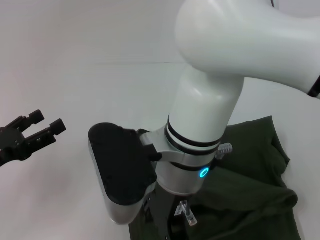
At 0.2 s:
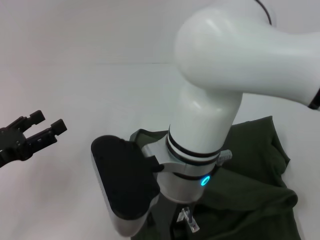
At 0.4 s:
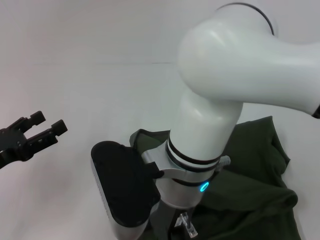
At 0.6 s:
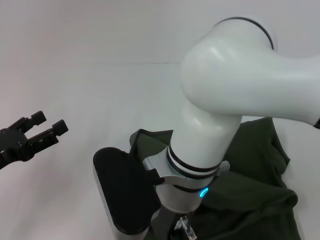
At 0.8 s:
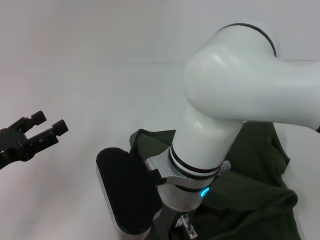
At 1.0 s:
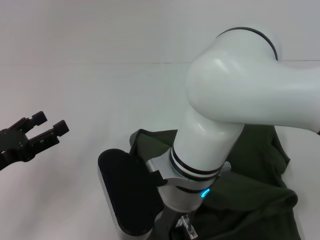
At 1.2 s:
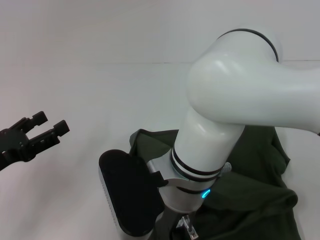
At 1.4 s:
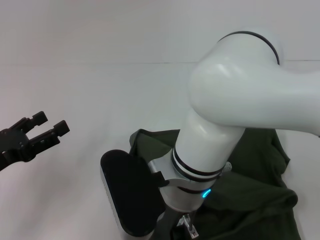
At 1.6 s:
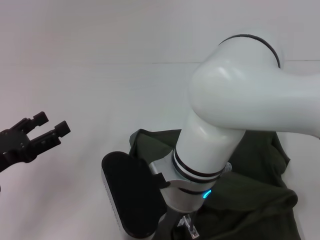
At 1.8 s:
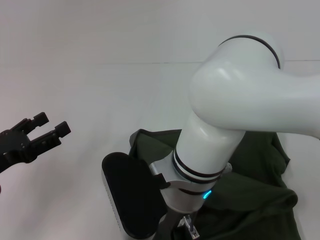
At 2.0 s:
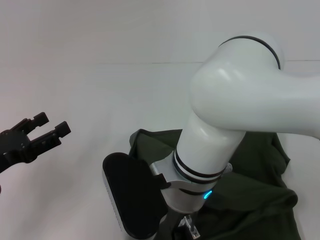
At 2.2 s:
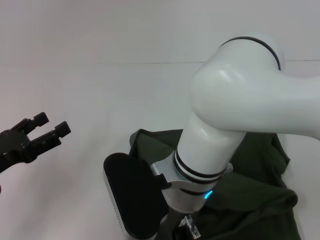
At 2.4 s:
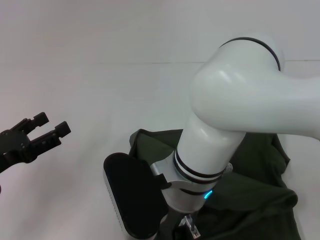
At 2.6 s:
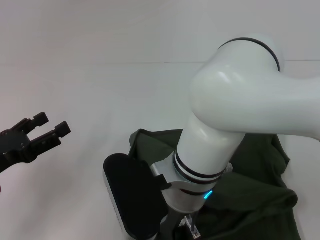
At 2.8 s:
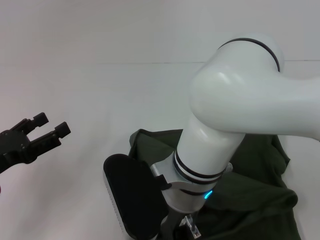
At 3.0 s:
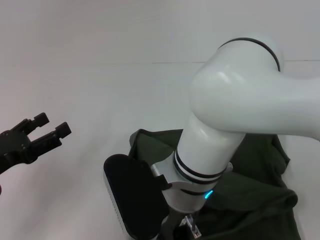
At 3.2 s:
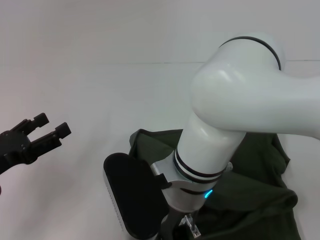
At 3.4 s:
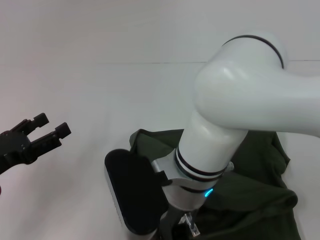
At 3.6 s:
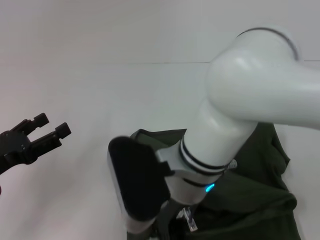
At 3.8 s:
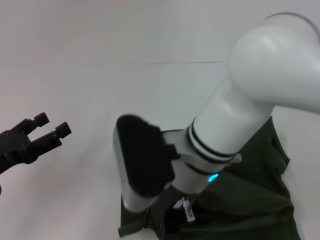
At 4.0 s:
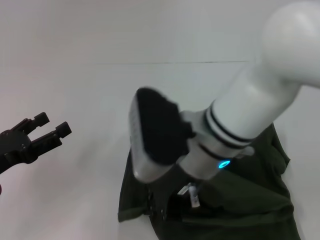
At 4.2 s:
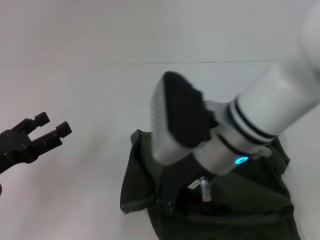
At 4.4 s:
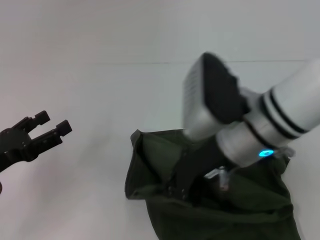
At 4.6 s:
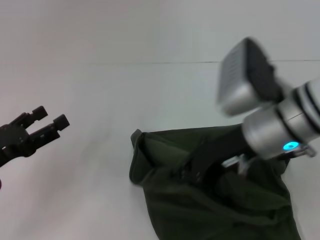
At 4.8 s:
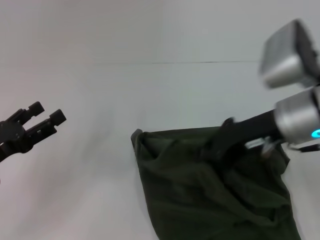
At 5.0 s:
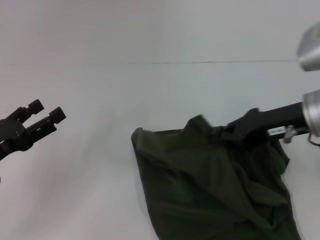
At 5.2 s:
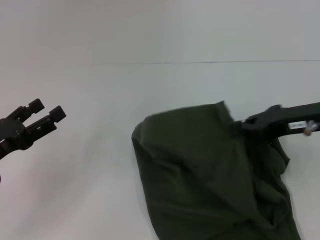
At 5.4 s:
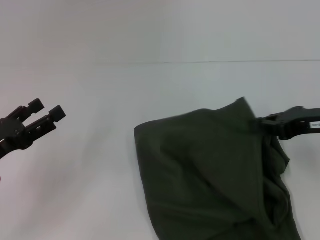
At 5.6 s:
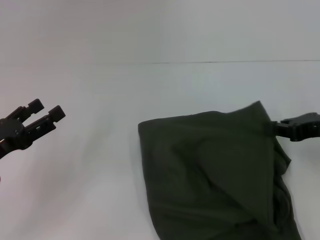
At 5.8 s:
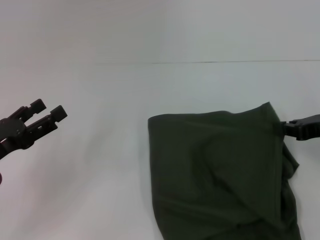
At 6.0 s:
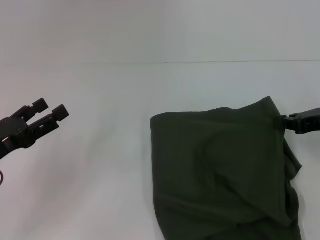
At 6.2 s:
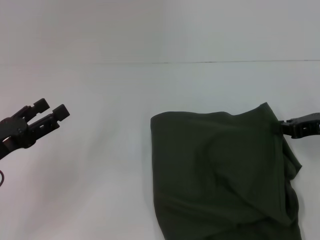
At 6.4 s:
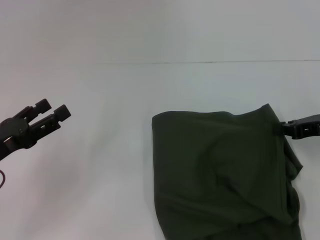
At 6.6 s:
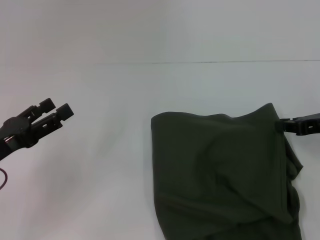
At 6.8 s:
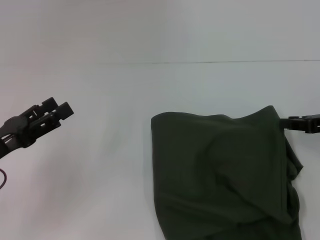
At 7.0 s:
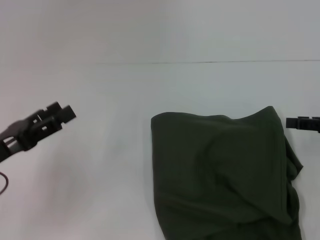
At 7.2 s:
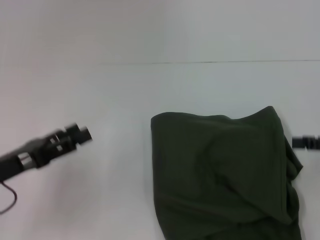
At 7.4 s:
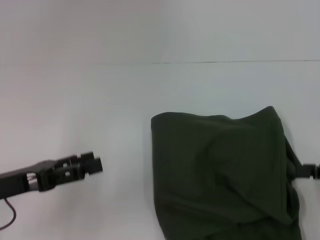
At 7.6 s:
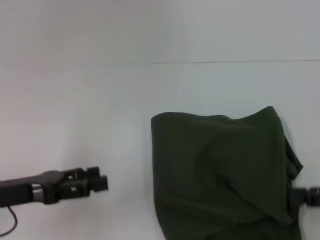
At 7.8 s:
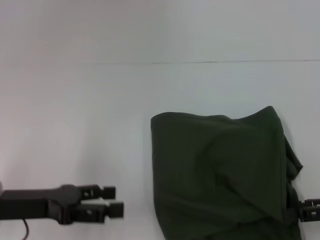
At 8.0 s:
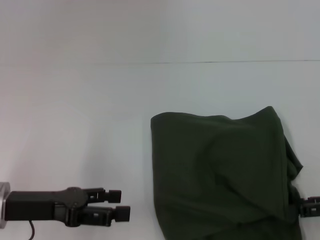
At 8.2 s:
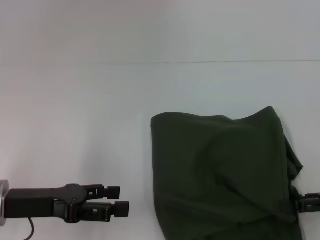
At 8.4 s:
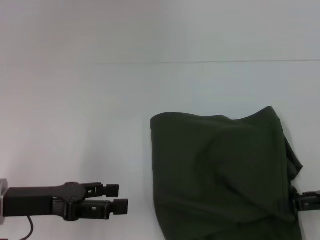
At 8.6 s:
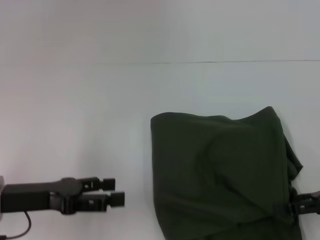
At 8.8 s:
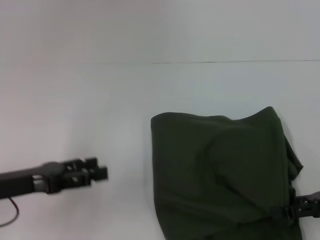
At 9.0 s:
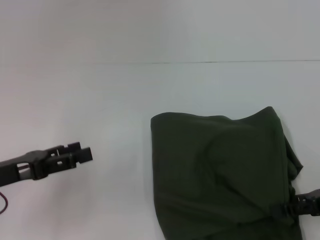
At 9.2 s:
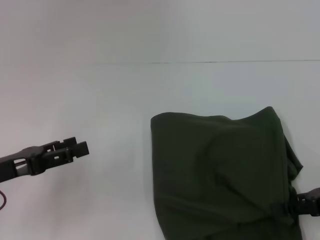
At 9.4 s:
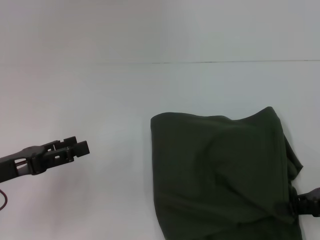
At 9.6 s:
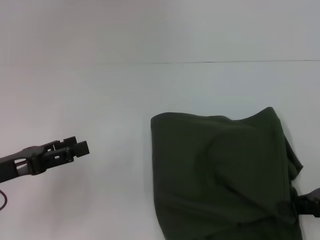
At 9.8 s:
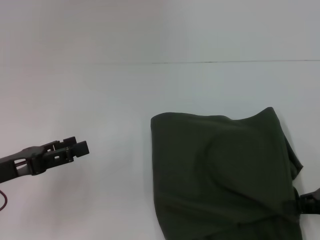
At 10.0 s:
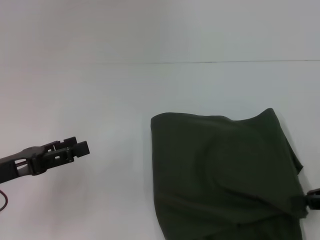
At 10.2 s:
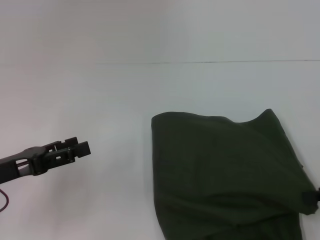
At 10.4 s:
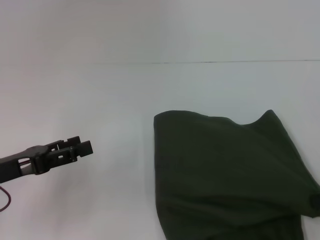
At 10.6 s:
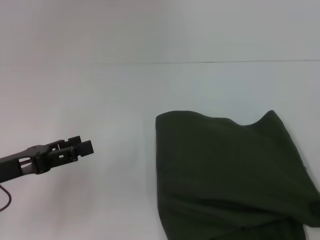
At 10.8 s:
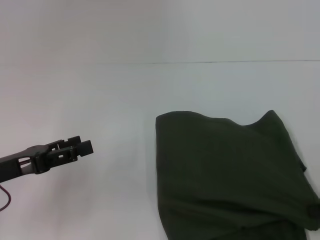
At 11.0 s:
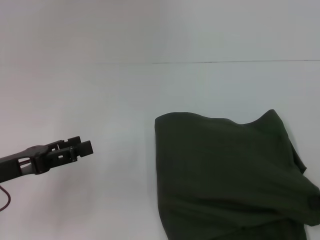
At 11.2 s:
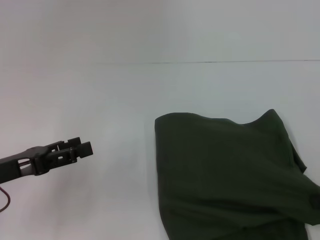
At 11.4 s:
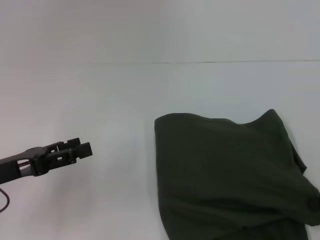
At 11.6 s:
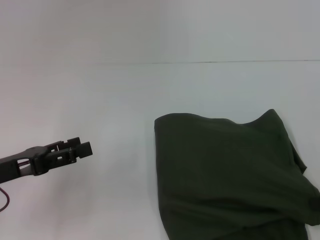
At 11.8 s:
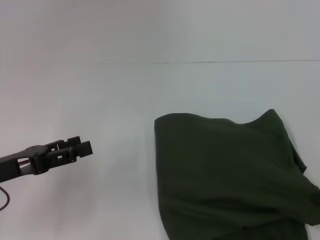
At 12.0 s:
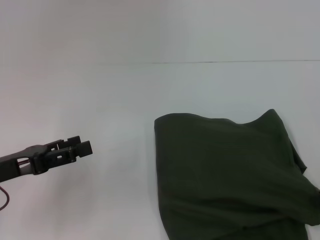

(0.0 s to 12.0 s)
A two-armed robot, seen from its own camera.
1.6 s - 3.0 s: The right gripper closes its fingers.
3.0 s - 4.4 s: The right gripper is displaced to the right by some 10 cm.
4.4 s - 6.0 s: The right gripper travels to the right by some 20 cm.
6.0 s - 7.6 s: The right gripper travels backward by approximately 10 cm, and opens its fingers.
7.6 s - 9.0 s: There are only small adjustments of the grippers.
9.0 s - 10.4 s: The right gripper moves roughly 5 cm, and closes its fingers.
10.4 s - 12.0 s: The grippers make only small movements.

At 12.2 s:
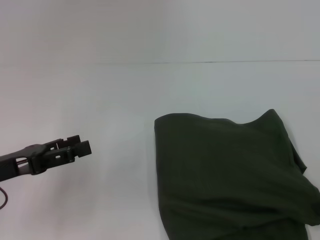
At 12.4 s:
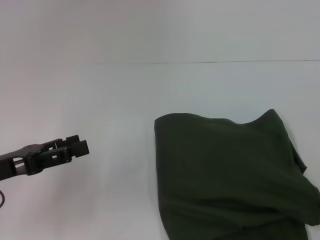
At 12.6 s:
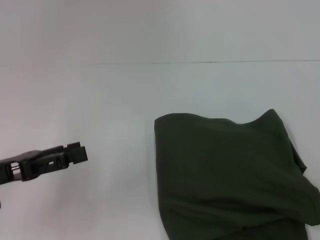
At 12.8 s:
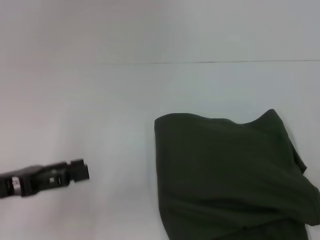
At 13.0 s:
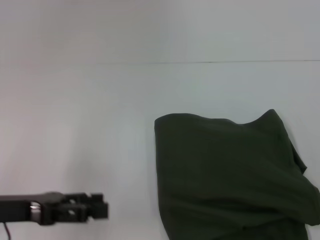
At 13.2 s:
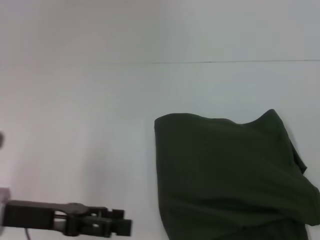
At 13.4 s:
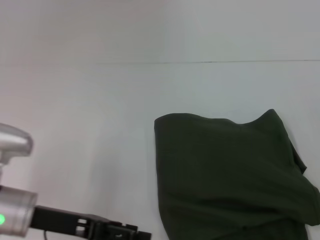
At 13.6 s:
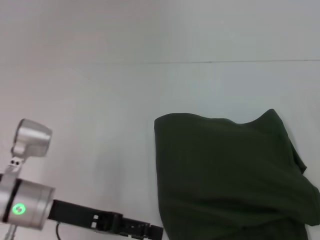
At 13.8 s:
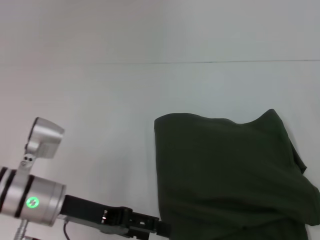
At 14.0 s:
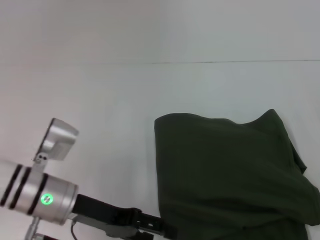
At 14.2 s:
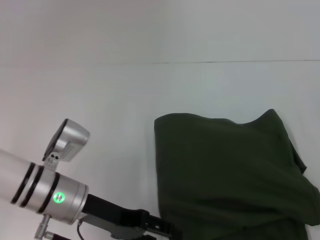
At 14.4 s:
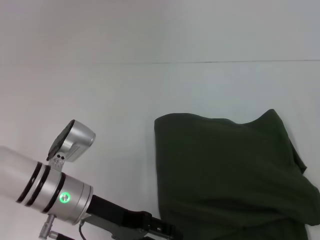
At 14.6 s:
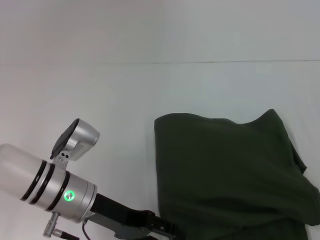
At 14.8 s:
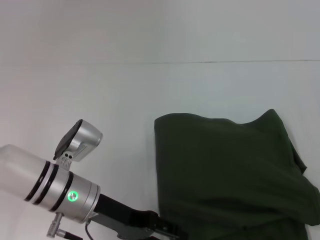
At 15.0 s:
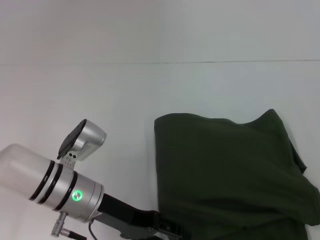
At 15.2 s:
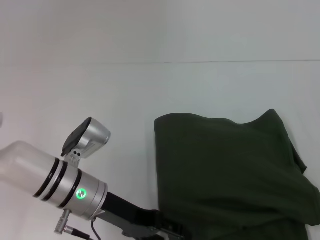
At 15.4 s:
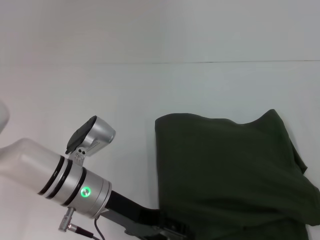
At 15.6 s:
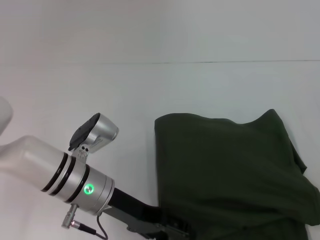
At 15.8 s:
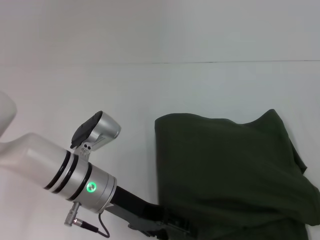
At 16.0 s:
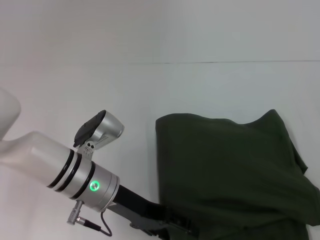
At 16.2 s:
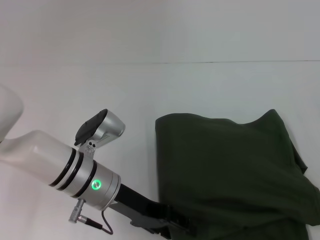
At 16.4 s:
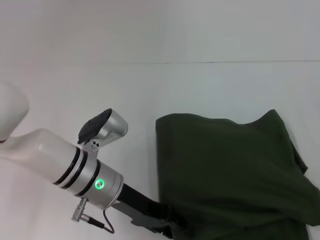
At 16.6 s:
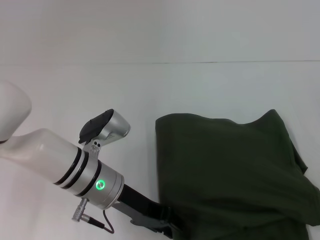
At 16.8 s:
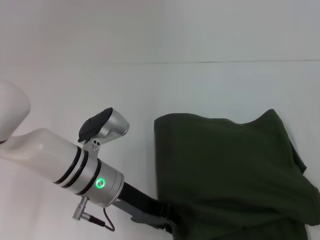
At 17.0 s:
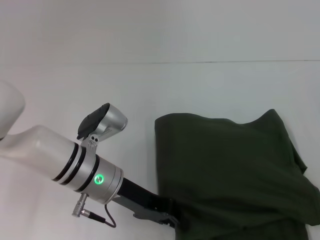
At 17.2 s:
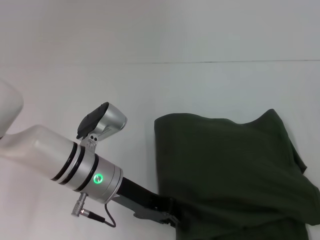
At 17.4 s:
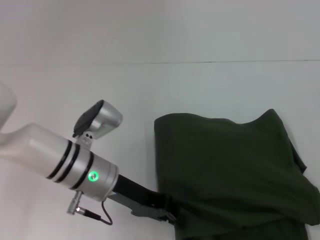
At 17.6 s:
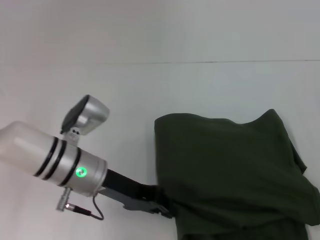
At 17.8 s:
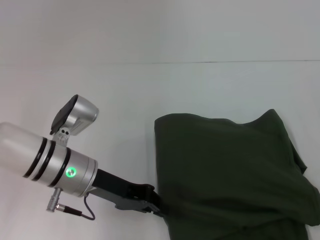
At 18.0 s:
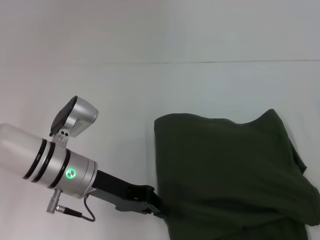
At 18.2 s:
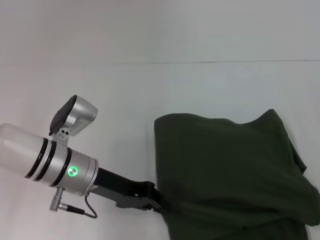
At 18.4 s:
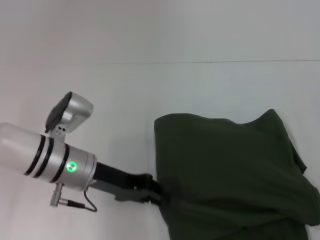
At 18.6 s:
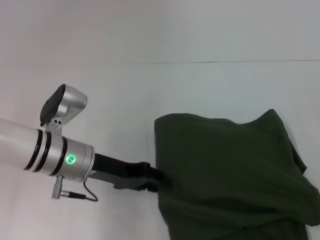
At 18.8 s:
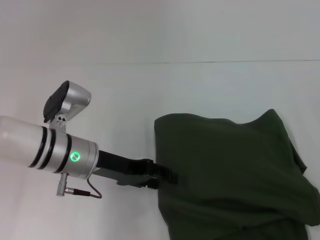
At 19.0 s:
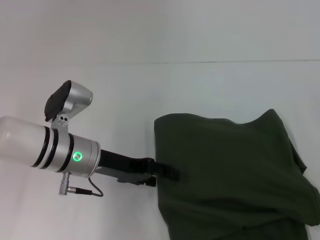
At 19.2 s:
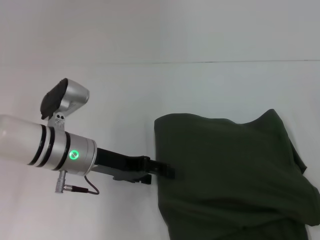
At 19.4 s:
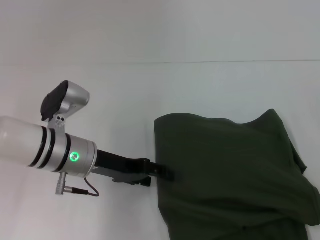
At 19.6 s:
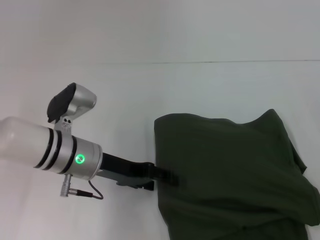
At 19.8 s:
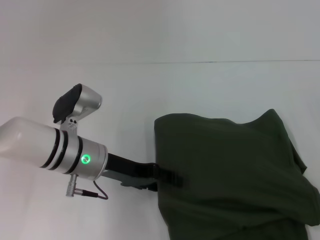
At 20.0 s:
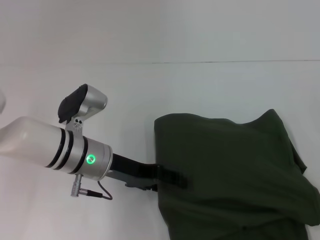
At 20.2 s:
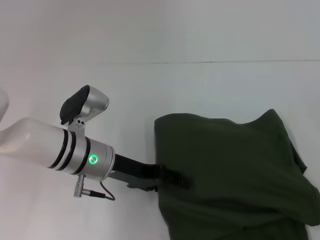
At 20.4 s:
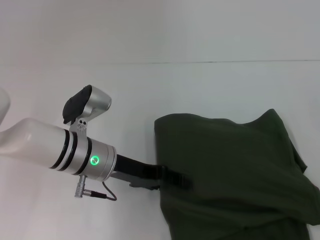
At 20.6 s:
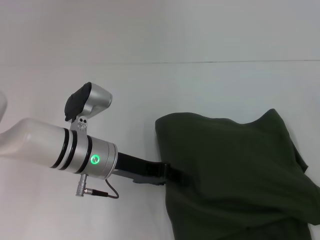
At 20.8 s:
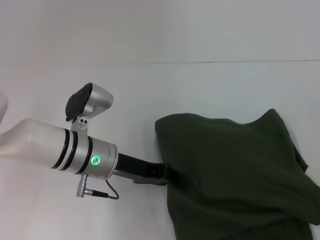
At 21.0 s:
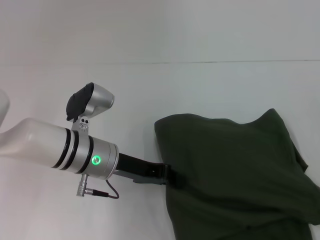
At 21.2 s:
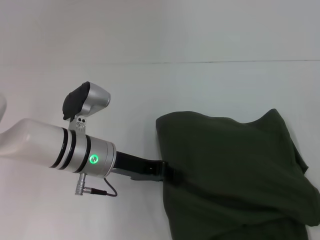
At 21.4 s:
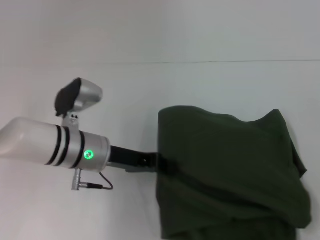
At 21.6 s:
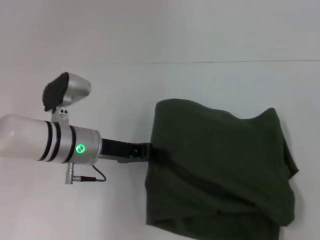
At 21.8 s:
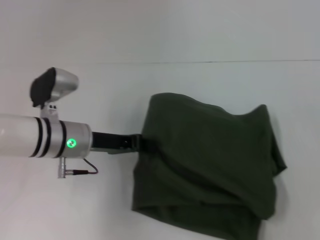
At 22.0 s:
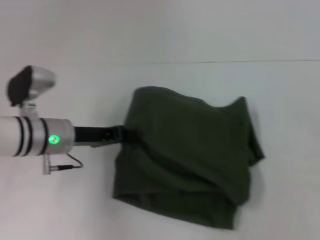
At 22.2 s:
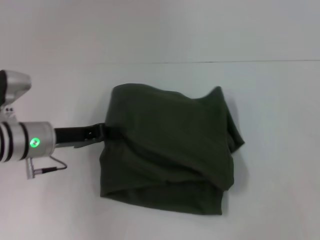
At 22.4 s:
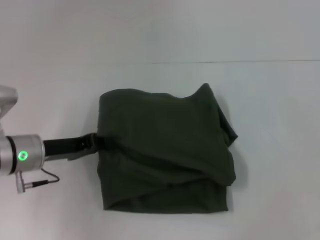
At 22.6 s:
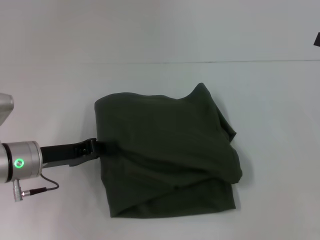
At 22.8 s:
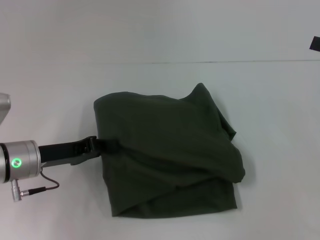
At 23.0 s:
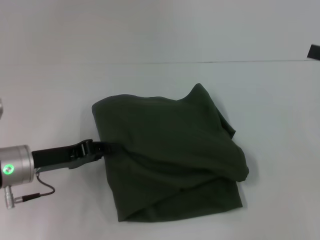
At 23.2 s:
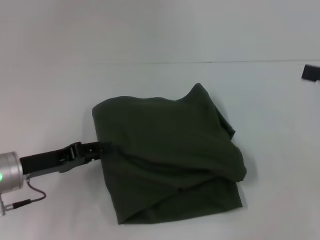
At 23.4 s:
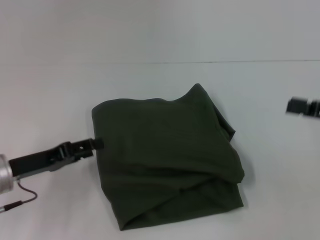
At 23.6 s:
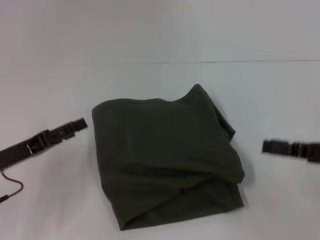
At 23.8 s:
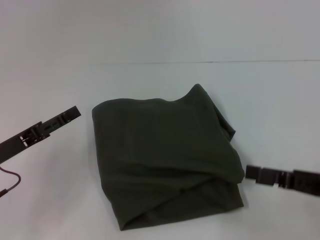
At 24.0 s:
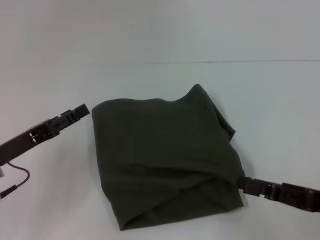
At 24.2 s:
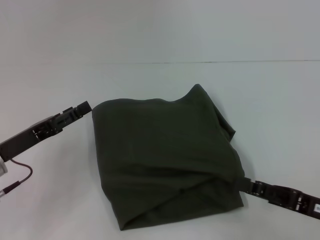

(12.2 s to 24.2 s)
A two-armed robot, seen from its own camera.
12.2 s - 13.8 s: The right gripper moves upward and to the right, roughly 10 cm, and opens its fingers; the left gripper goes about 10 cm to the right.
13.8 s - 15.2 s: The left gripper is displaced to the right by approximately 5 cm.
15.2 s - 16.6 s: The grippers make only small movements.
16.6 s - 18.2 s: The left gripper closes.
18.2 s - 19.8 s: The left gripper opens its fingers.
19.8 s - 21.2 s: The left gripper closes.
21.2 s - 22.6 s: The left gripper moves to the left, approximately 10 cm.
22.6 s - 24.2 s: The left gripper shifts by about 5 cm, and opens, while the right gripper heads downward, backward and to the left, covering roughly 20 cm.
